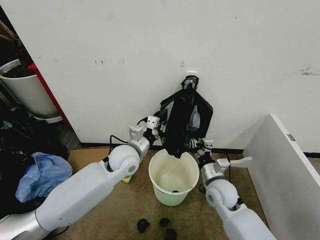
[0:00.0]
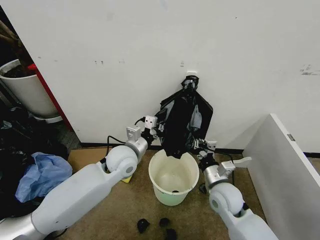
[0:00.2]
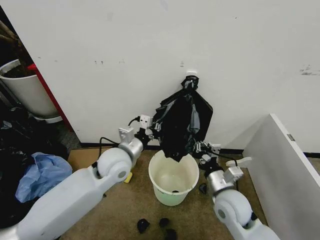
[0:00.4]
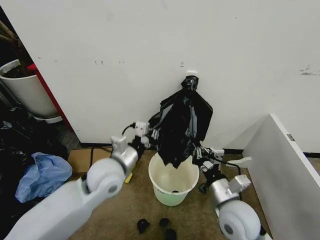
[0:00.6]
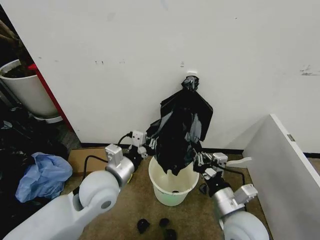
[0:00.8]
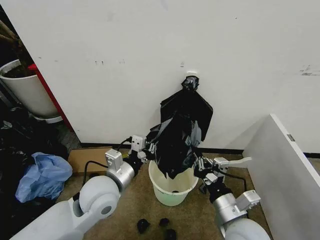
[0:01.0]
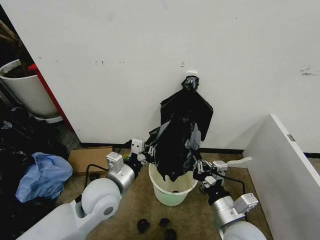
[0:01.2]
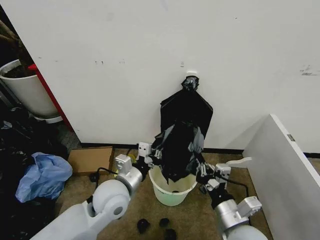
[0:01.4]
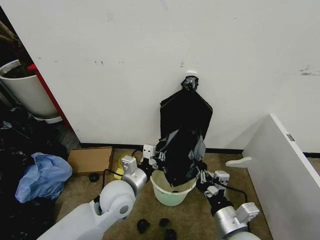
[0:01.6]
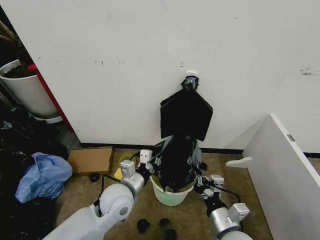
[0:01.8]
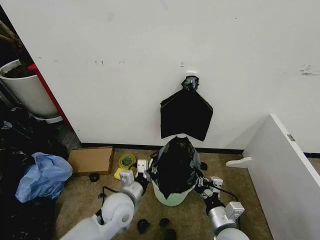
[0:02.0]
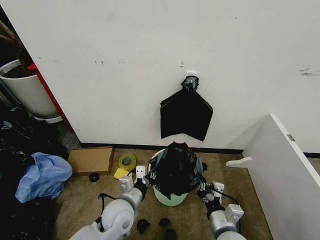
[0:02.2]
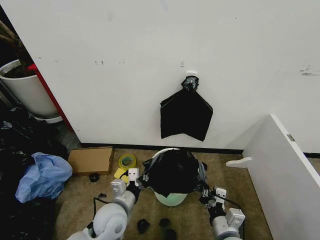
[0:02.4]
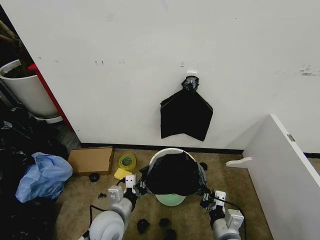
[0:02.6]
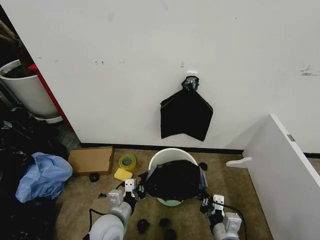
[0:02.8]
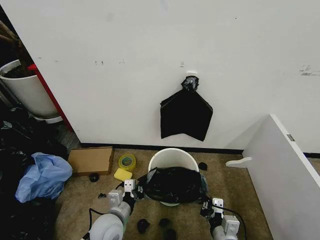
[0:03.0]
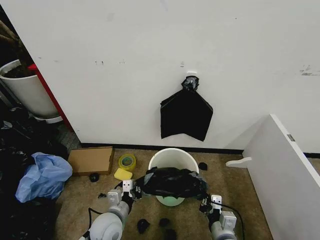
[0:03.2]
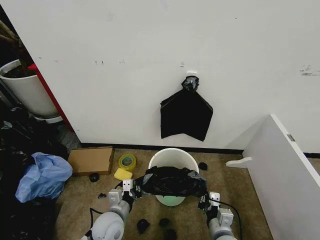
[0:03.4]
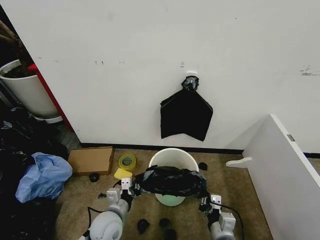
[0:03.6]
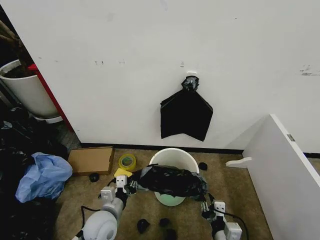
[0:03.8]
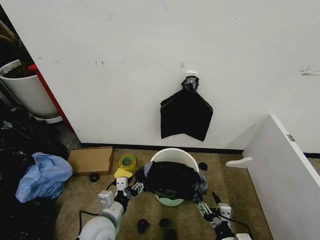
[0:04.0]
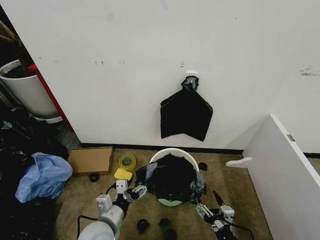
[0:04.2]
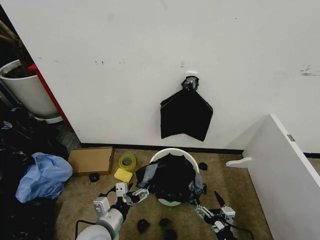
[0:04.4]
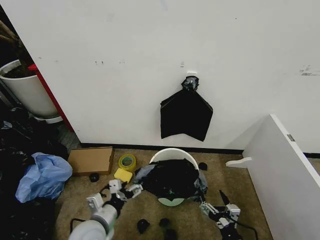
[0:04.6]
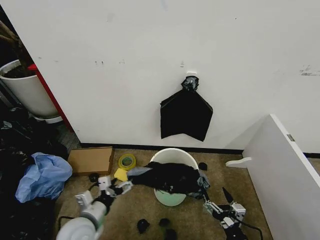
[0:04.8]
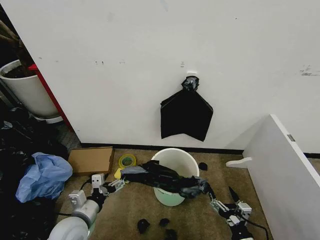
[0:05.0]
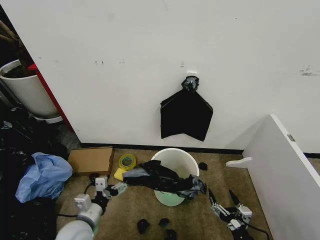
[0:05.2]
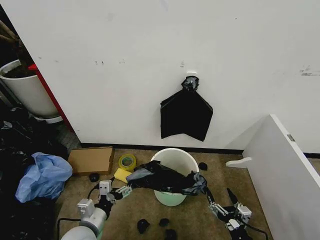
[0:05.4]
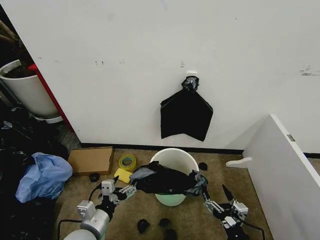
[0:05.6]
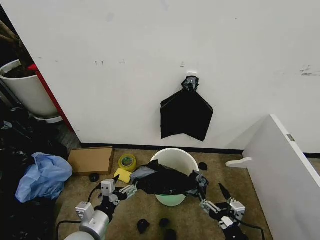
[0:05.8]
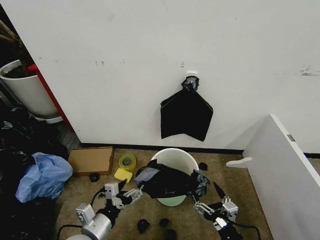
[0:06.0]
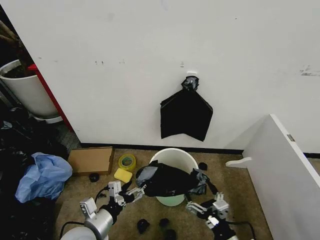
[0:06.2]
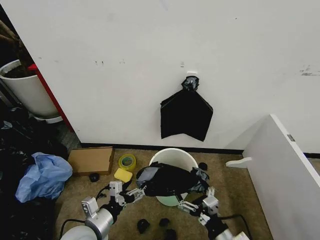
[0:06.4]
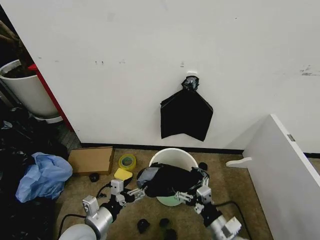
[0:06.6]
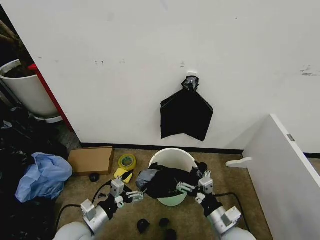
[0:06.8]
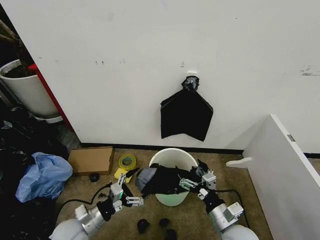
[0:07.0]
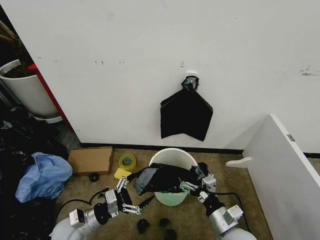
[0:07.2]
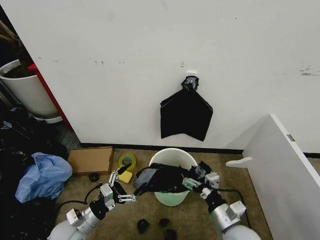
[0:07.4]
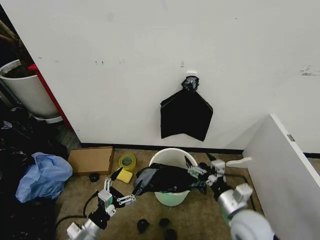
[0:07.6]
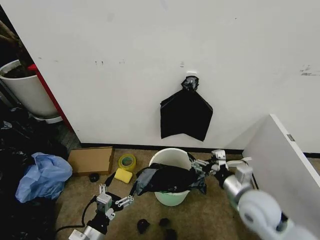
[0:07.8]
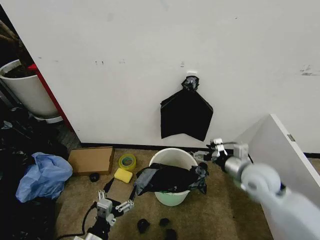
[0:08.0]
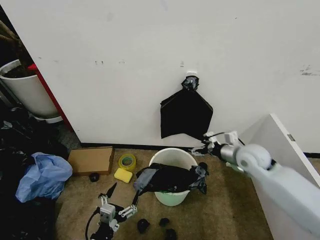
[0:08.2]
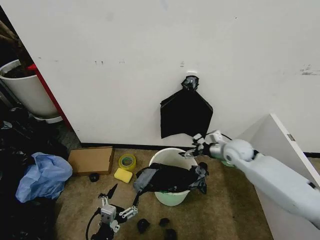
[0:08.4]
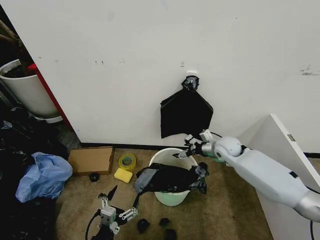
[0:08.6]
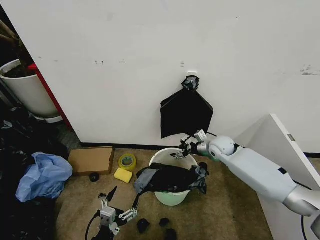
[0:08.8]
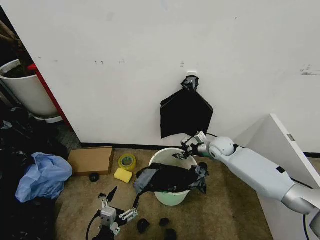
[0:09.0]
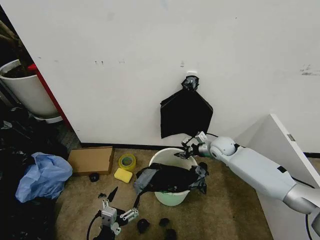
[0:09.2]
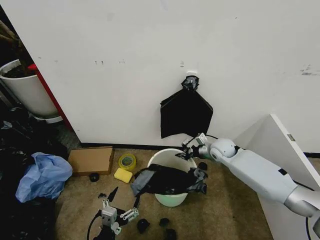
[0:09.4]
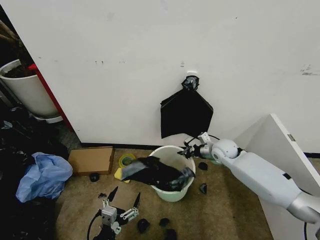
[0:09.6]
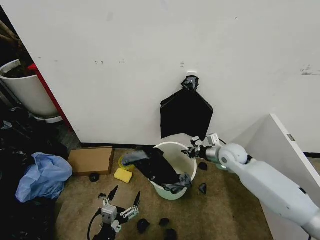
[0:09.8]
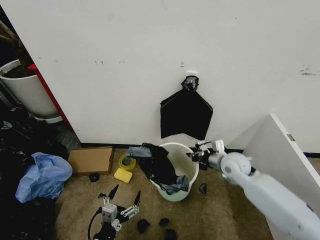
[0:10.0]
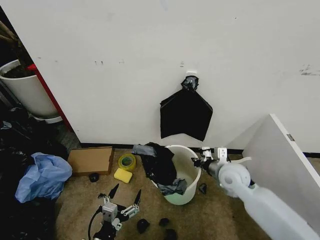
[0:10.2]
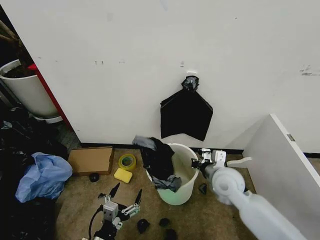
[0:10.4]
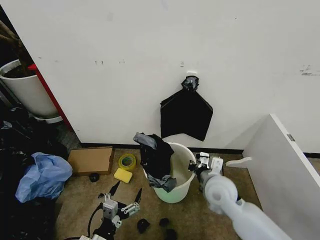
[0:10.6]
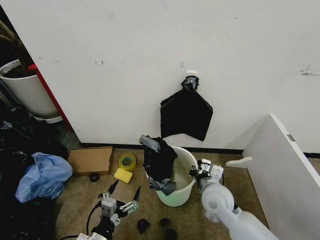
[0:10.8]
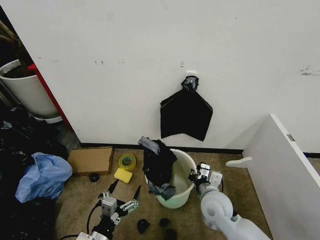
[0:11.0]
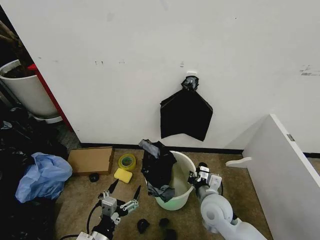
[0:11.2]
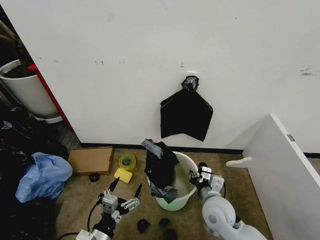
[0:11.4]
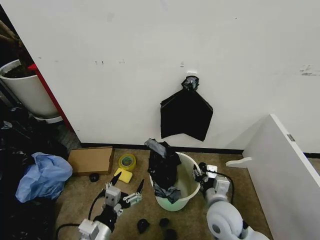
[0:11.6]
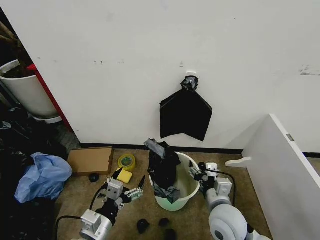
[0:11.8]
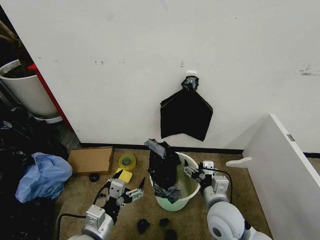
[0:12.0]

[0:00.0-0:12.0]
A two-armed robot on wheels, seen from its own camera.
Task of the whole recording: Place the garbage bag over the trash bin.
0:00.0 to 0:01.6: The two grippers go roughly 15 cm backward.
0:01.6 to 0:03.0: The left gripper goes roughly 15 cm downward and backward. The right gripper travels downward by about 10 cm.
0:03.0 to 0:04.4: The left gripper moves approximately 5 cm, and opens up. Meanwhile the right gripper heads backward, covering approximately 5 cm, and opens up.
0:06.0 to 0:07.6: The left gripper travels downward by approximately 10 cm, while the right gripper is displaced forward and upward by roughly 15 cm.
0:07.6 to 0:09.0: The right gripper goes approximately 30 cm forward, and closes its fingers. Meanwhile the left gripper shifts approximately 5 cm backward.
0:09.0 to 0:10.4: The right gripper moves backward, some 15 cm, and closes.
0:10.4 to 0:12.0: The right gripper goes about 10 cm backward, and opens up. Meanwhile the left gripper moves upward, about 10 cm.

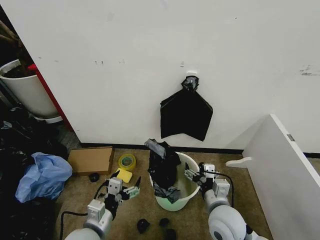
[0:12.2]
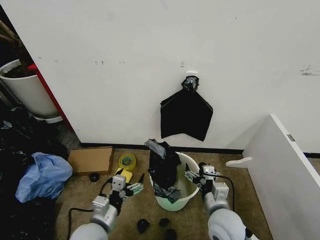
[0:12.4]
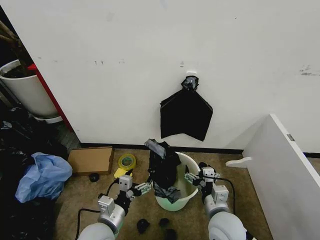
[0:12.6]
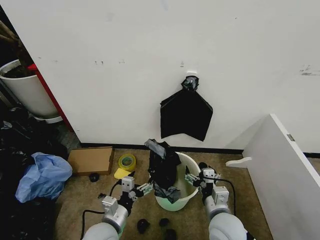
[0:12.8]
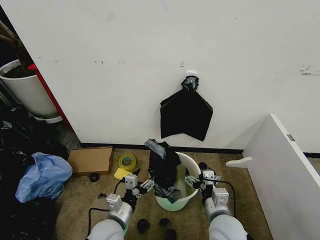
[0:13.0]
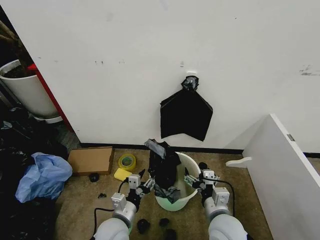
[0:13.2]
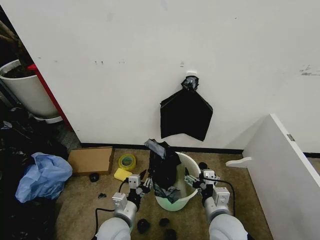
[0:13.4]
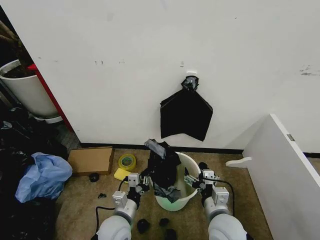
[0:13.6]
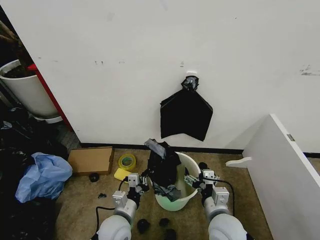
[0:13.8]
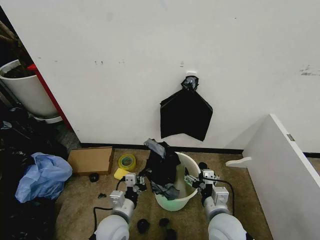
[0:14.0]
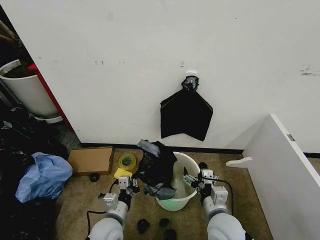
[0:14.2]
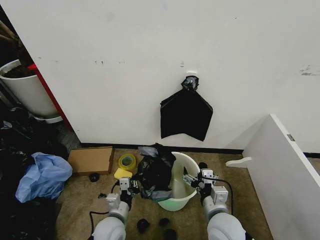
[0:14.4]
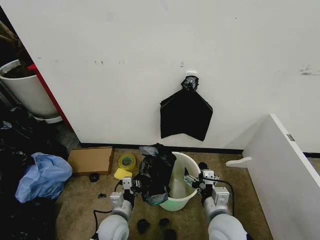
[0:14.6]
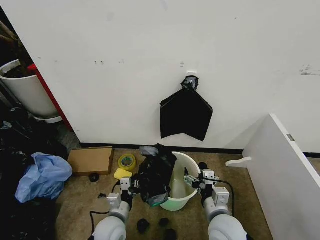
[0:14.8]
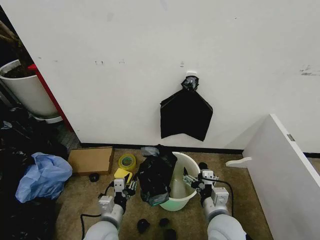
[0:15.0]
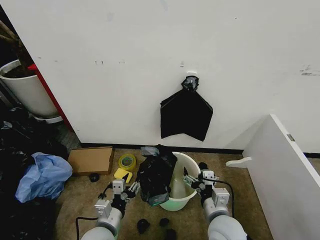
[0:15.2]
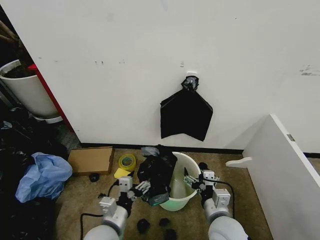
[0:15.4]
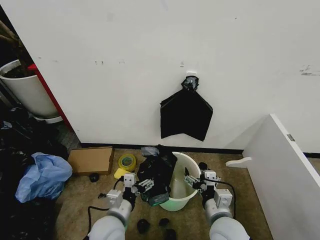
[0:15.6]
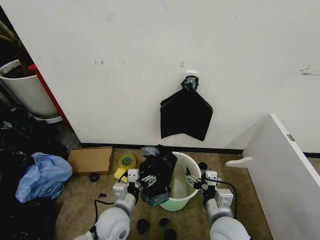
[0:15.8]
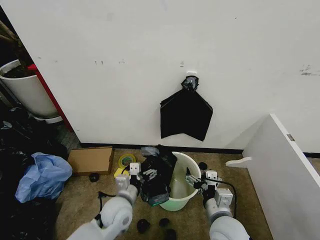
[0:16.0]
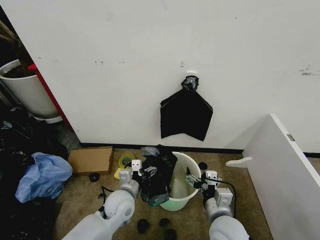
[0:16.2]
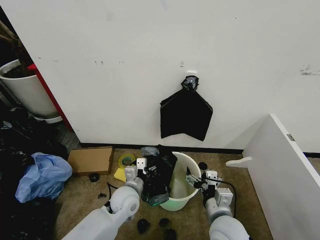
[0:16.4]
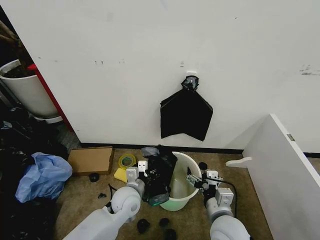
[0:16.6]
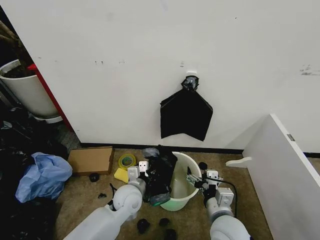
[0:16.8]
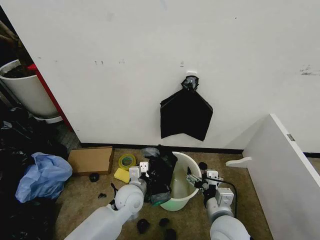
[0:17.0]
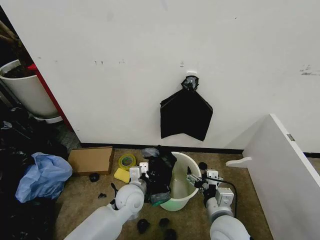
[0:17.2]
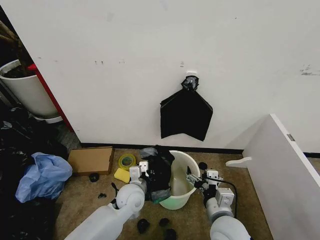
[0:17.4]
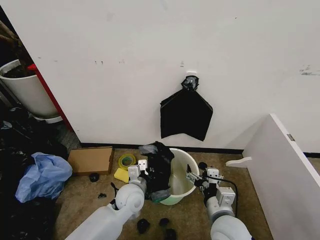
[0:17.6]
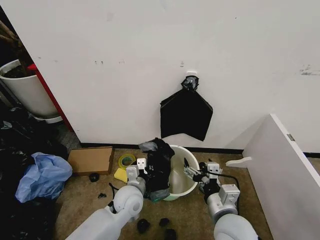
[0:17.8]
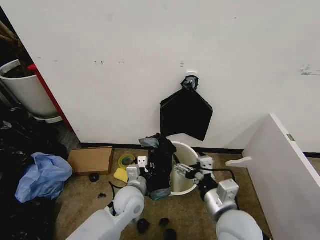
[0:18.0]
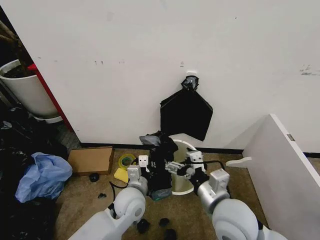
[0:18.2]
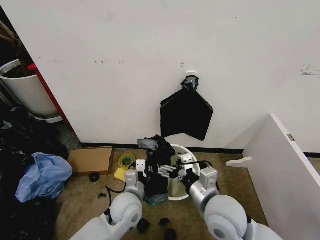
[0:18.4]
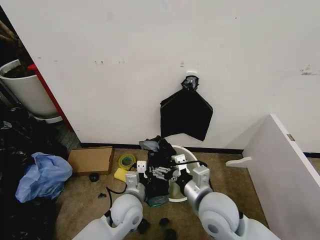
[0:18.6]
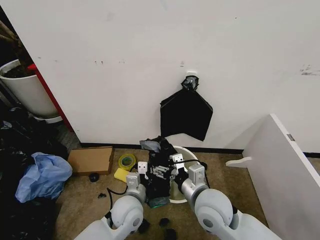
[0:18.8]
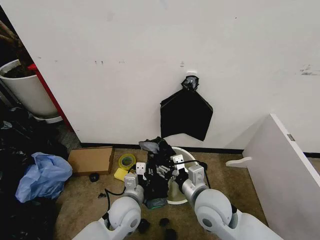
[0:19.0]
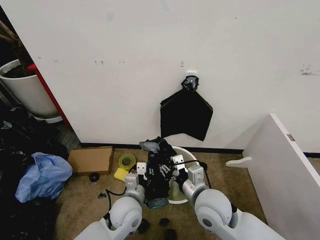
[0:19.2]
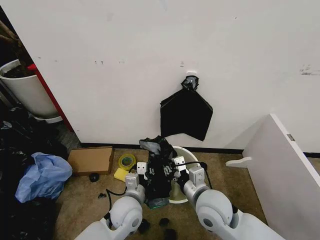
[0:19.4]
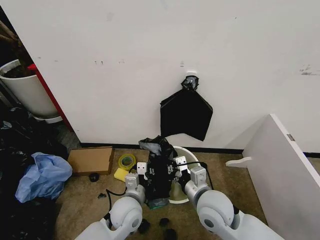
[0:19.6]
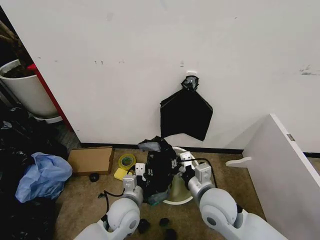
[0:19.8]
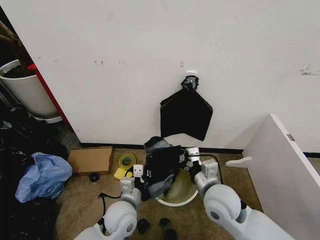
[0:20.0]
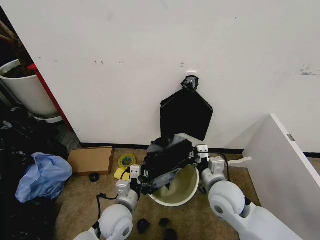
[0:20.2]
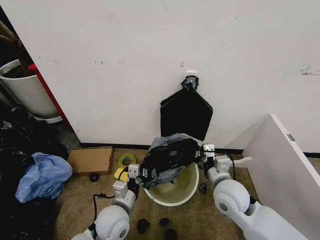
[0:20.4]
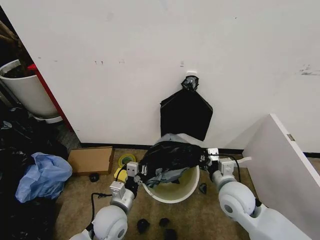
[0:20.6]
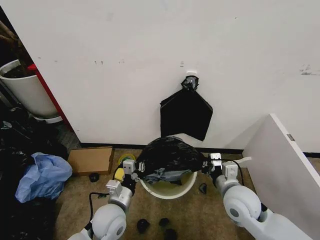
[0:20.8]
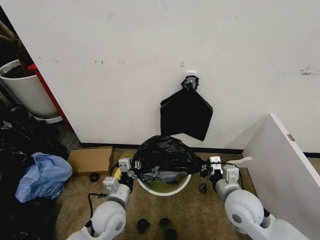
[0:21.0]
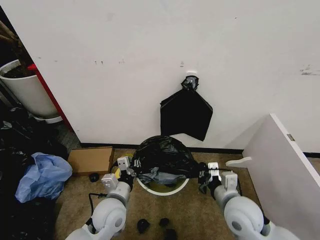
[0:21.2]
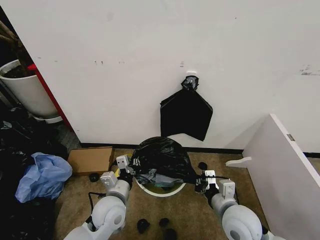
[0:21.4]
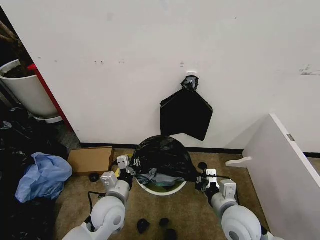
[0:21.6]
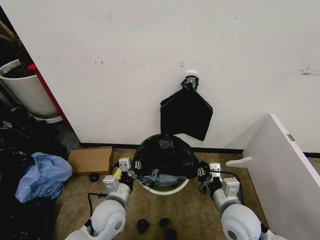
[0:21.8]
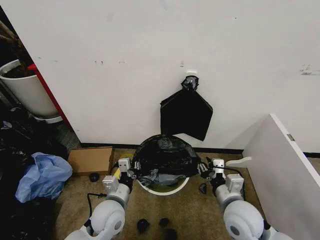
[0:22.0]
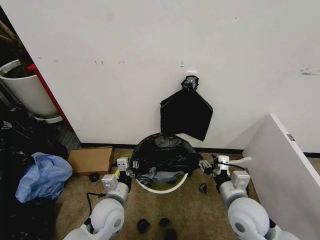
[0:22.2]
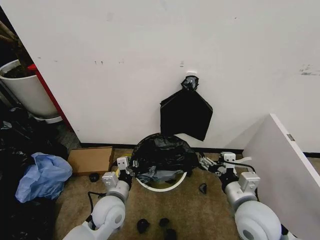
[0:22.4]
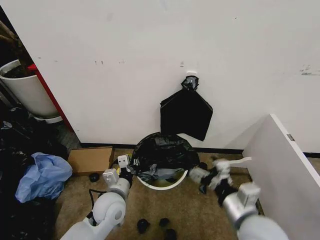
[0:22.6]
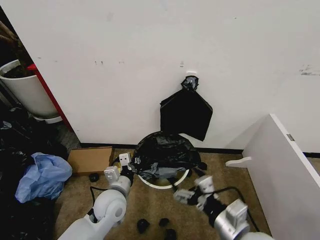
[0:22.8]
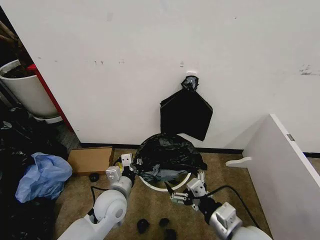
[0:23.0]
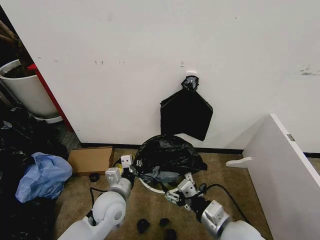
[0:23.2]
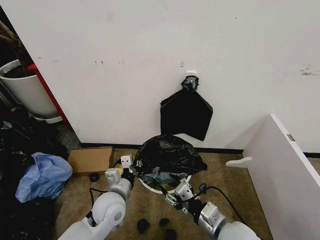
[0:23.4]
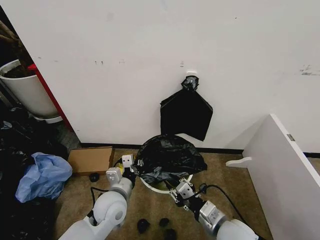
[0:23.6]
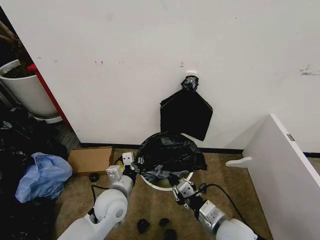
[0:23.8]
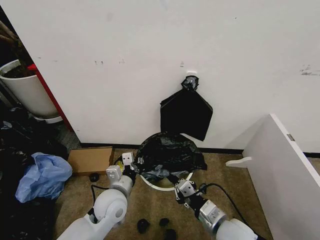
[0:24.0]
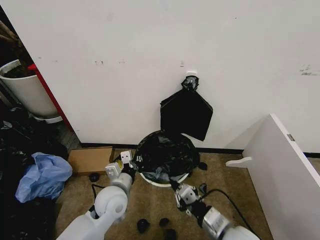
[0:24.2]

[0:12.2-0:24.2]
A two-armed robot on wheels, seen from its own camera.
Task of the whole recording: Place the garbage bag over the trash bin.
0:12.2 to 0:13.8: The left gripper moves downward, to the right and forward, approximately 10 cm, and closes up.
0:13.8 to 0:15.2: The left gripper moves roughly 5 cm, and opens.
0:15.2 to 0:16.6: The left gripper heads forward and to the right, covering approximately 15 cm.
0:16.6 to 0:18.2: The right gripper moves upward, roughly 10 cm. Meanwhile the left gripper closes up.
0:18.2 to 0:19.8: The right gripper moves some 5 cm, and closes.
0:19.8 to 0:21.2: The right gripper travels to the right by some 5 cm.
0:21.2 to 0:22.6: The right gripper heads backward and upward, covering roughly 10 cm, and opens up.
0:22.6 to 0:24.2: The right gripper moves downward, about 5 cm, and closes.
